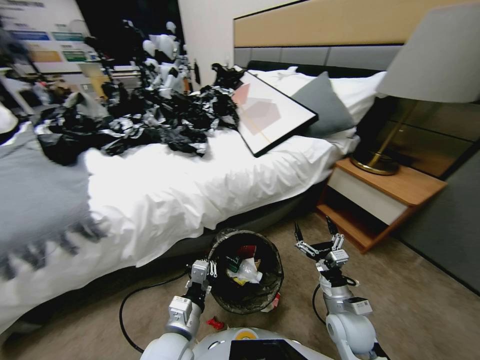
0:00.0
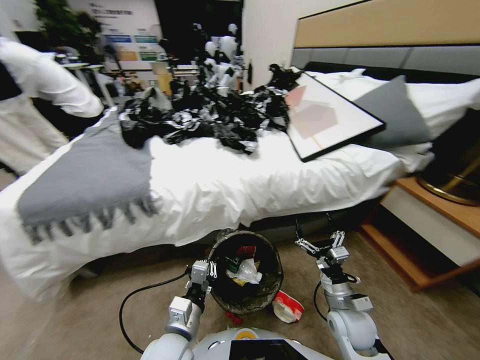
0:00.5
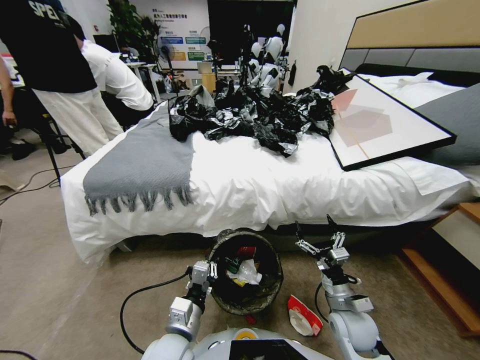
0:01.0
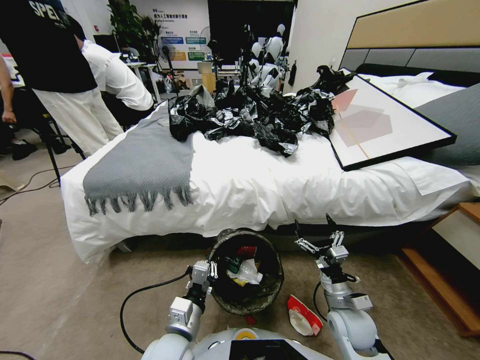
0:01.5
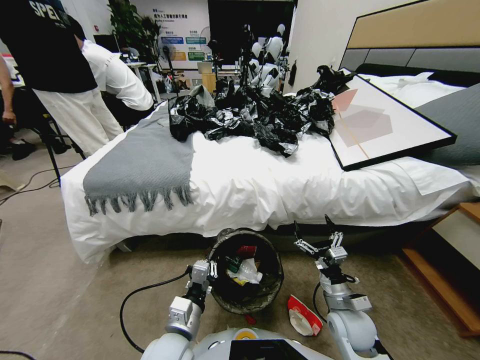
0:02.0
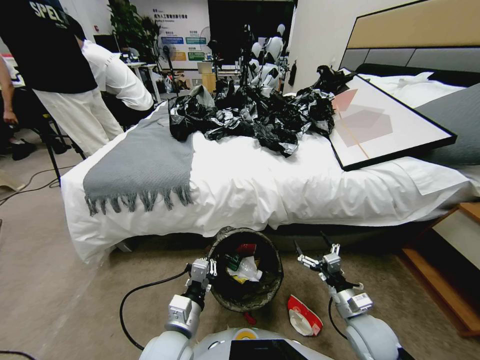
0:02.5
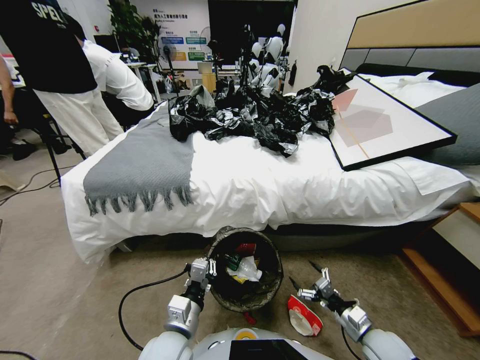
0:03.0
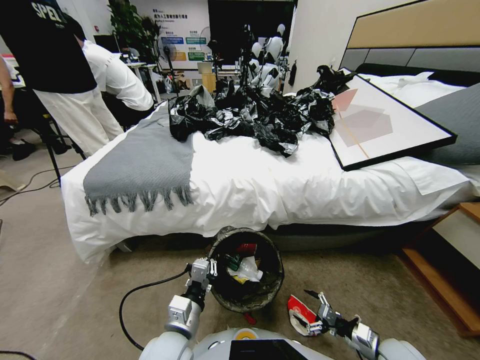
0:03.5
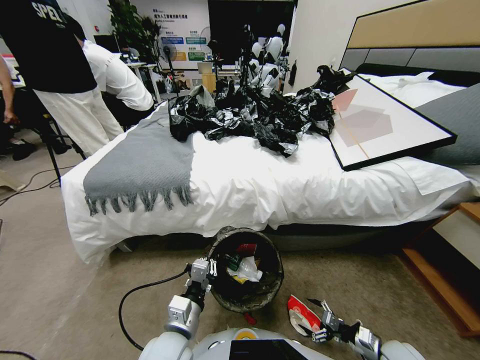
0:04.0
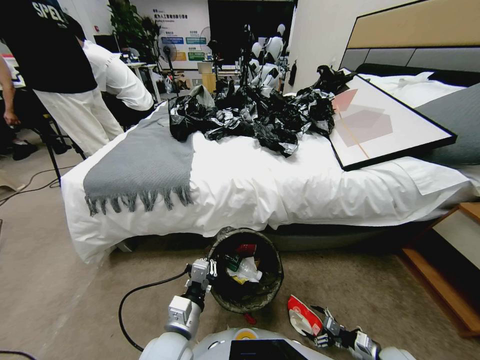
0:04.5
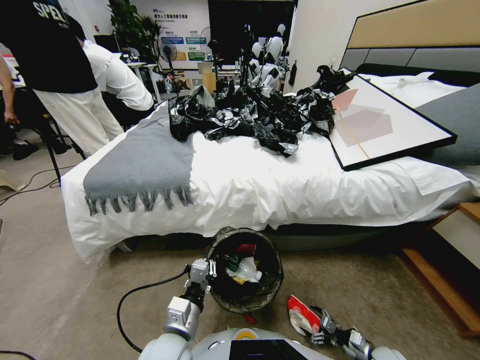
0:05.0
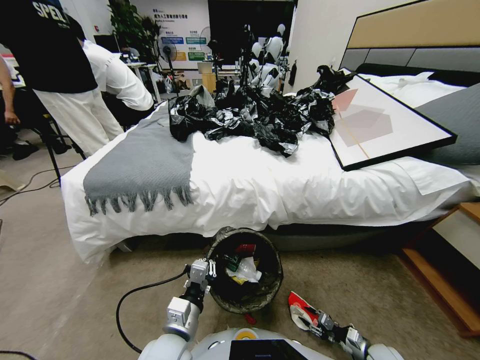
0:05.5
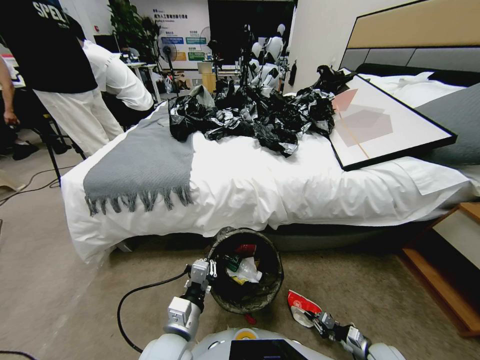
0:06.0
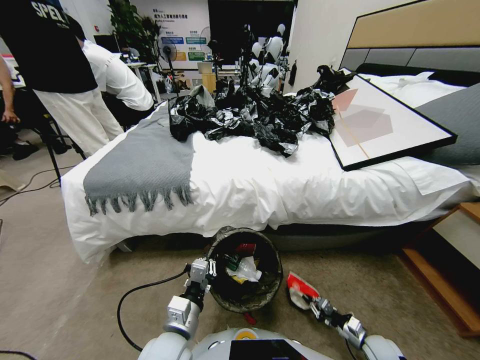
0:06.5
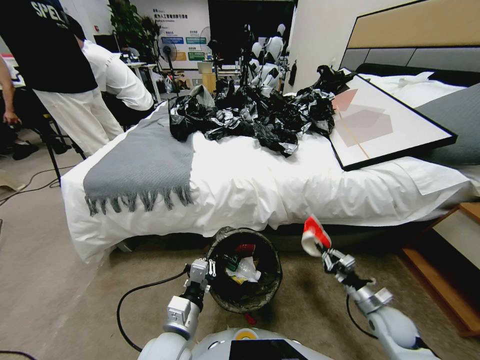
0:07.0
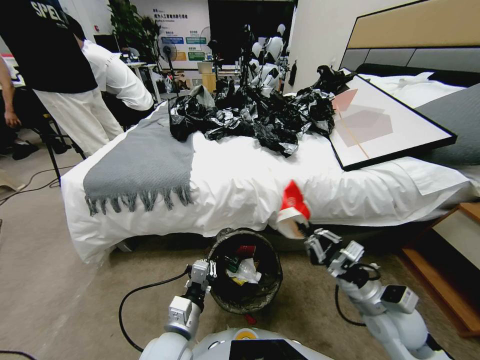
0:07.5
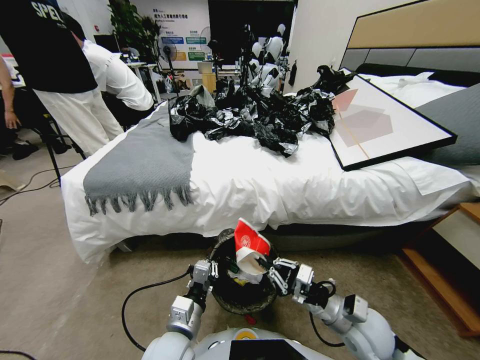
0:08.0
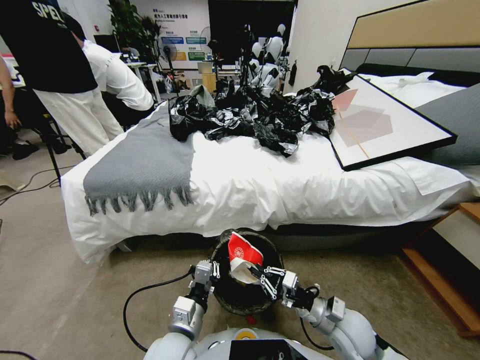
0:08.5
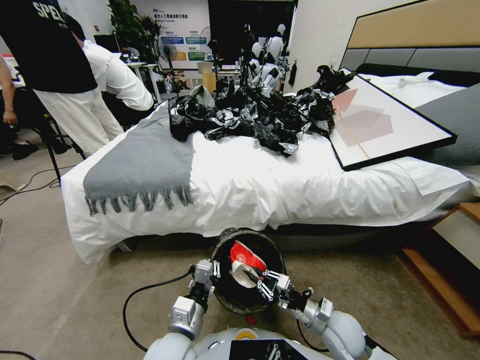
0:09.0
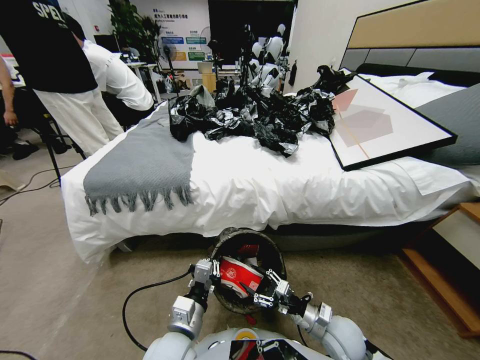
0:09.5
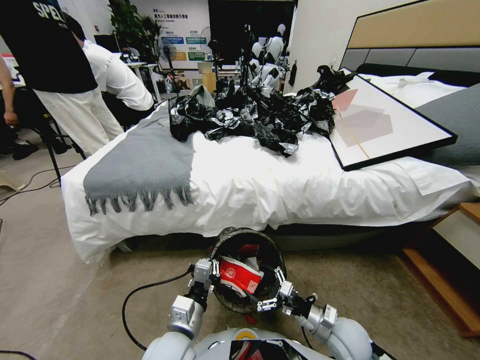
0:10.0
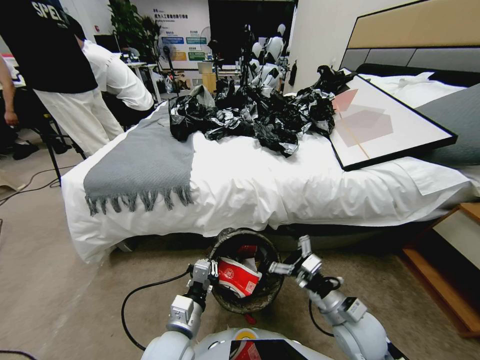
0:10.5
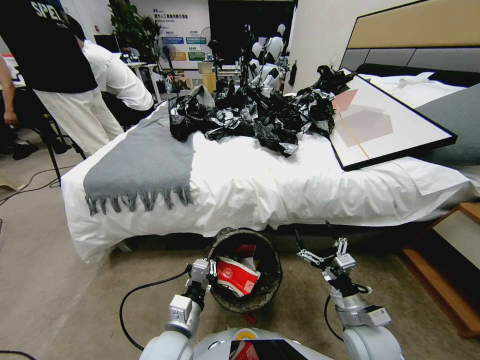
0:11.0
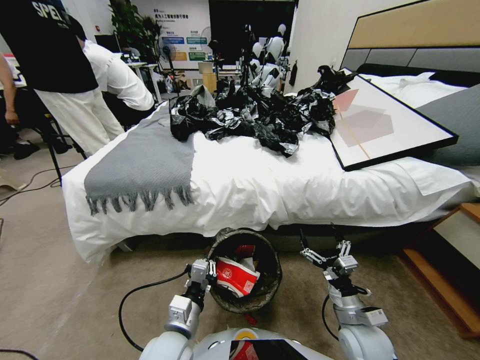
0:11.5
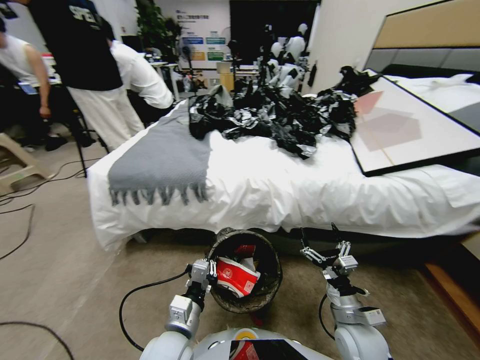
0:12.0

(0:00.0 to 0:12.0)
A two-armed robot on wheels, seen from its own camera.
Task of the whole recording: Pick up the trash bin, then pick up the garbage from the floor and place it into the trash bin.
0:02.0 - 0:04.0: The right gripper goes approximately 25 cm to the right, downward and backward.
0:04.0 - 0:06.0: The right gripper heads downward, covering roughly 5 cm, and closes.
0:06.0 - 0:08.0: The right gripper shifts roughly 30 cm upward and to the left.
0:08.0 - 0:10.0: The right gripper shifts approximately 5 cm downward, and opens up.

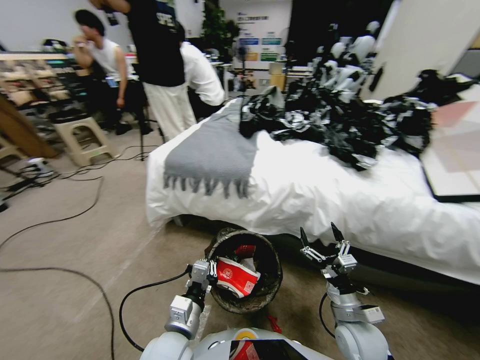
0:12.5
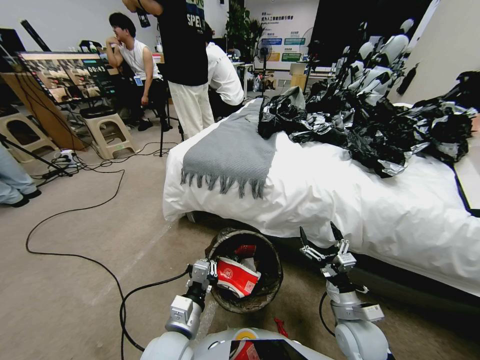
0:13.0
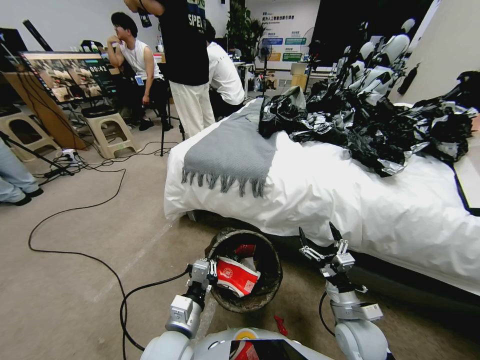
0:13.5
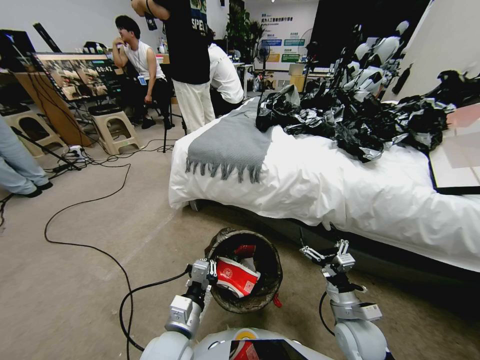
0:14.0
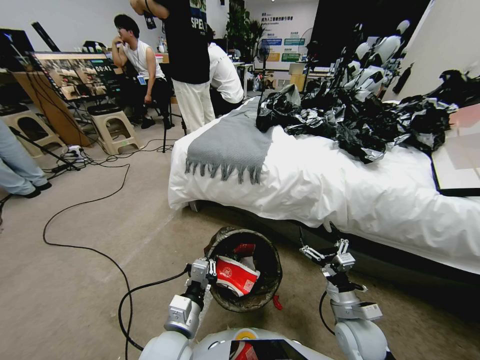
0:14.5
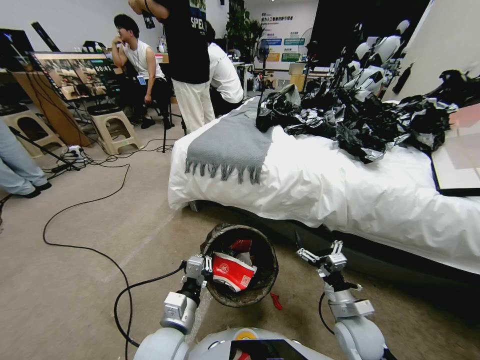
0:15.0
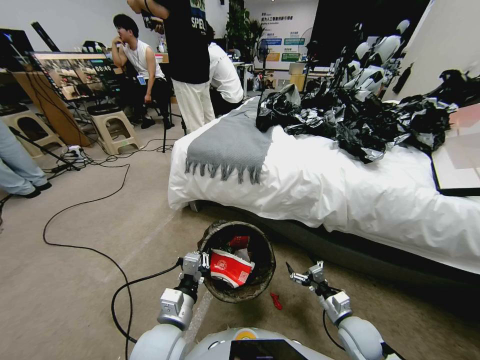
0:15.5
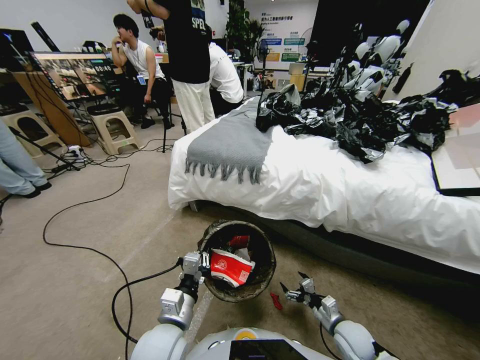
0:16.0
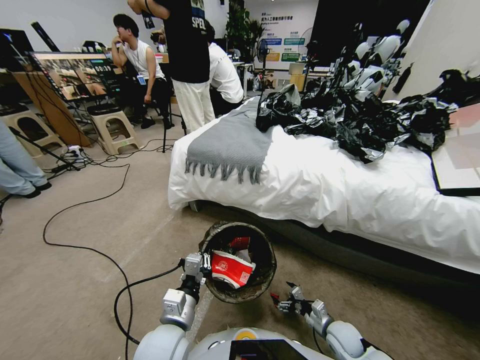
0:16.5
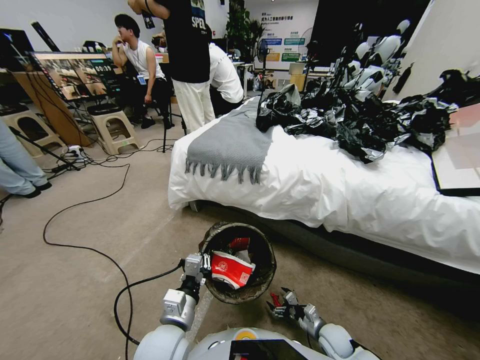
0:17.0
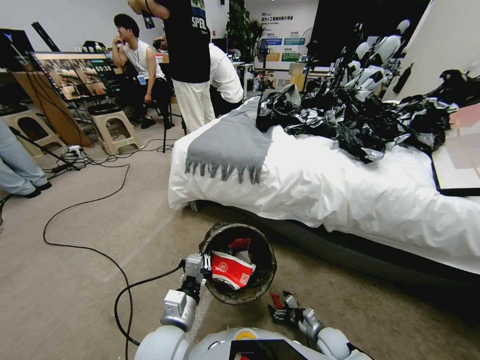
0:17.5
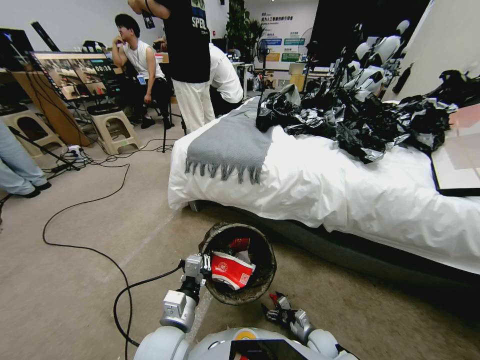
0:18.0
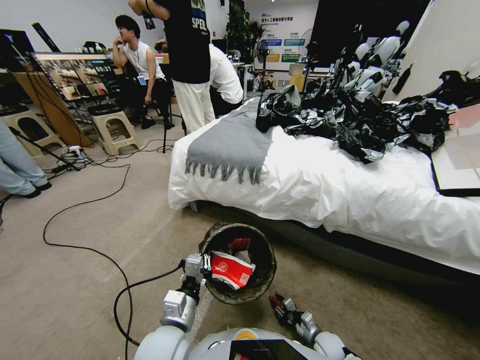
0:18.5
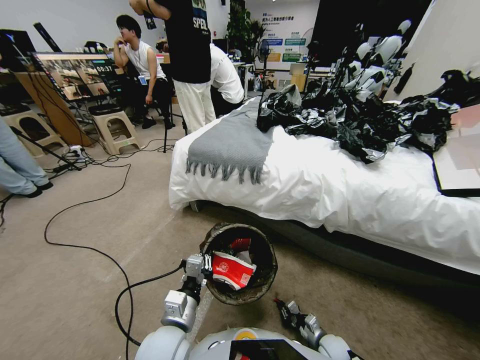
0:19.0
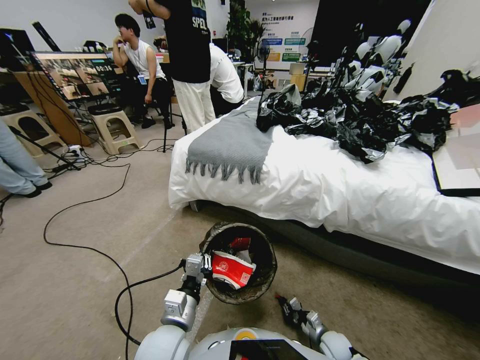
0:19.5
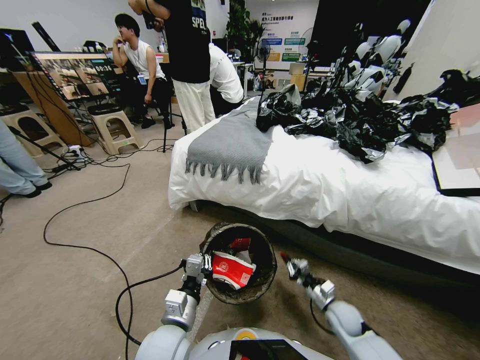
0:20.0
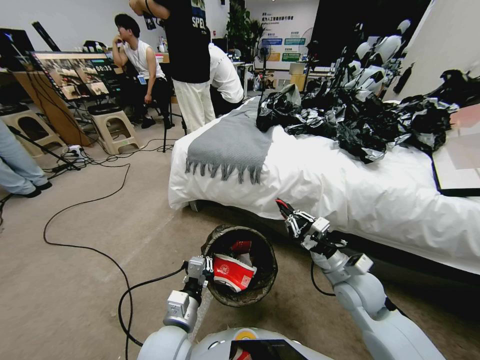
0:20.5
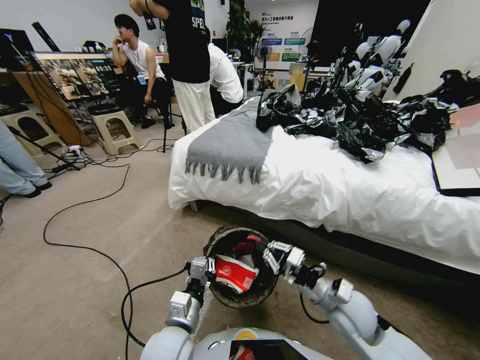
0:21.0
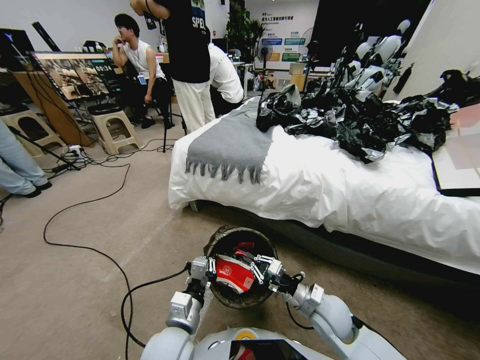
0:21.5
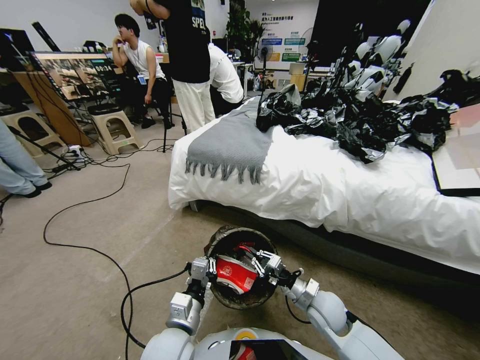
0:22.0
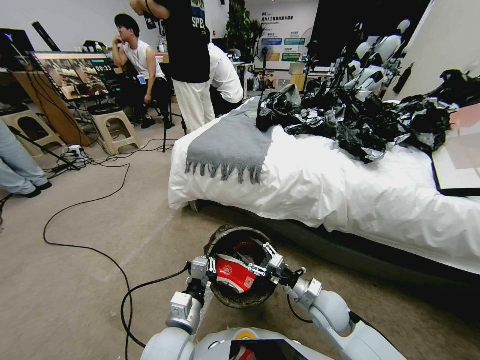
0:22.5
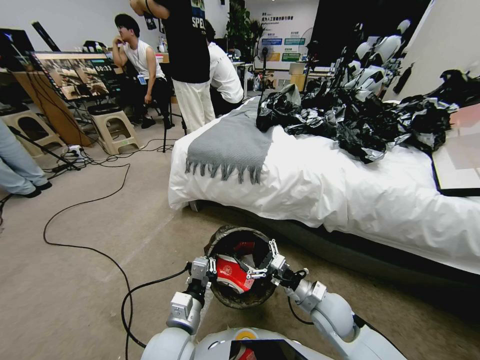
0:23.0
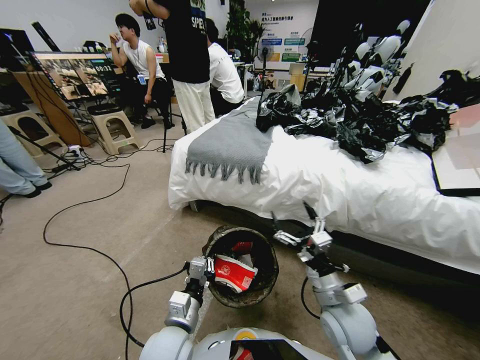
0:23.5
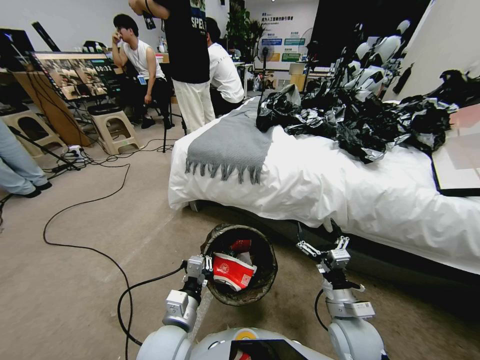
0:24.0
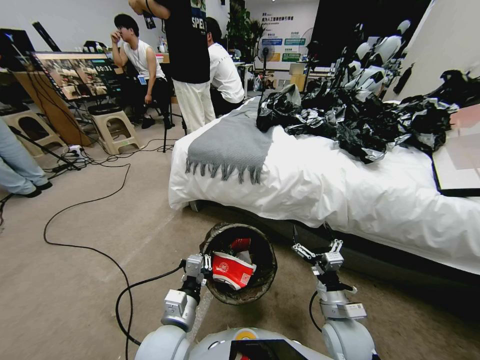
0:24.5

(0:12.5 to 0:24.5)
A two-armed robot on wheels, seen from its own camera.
Task of the whole recording: Pick up the trash bin, then pick up the garbage from the floor and place it into the trash bin.
0:14.5 - 0:16.5: The right gripper heads downward, covering roughly 15 cm.
0:16.5 - 0:18.5: The right gripper goes about 10 cm downward, and closes up.
0:18.5 - 0:20.5: The right gripper goes roughly 35 cm upward.
0:20.5 - 0:22.5: The right gripper shifts about 10 cm downward, and opens.
0:22.5 - 0:24.5: The right gripper heads backward, covering roughly 5 cm, and moves some 10 cm upward and comes back.

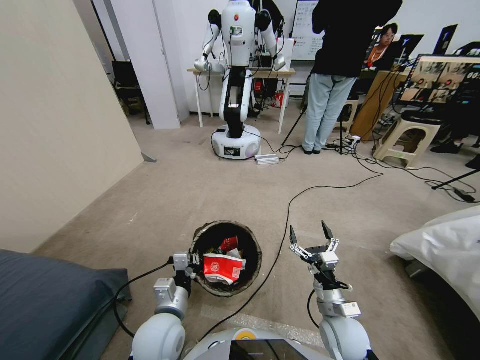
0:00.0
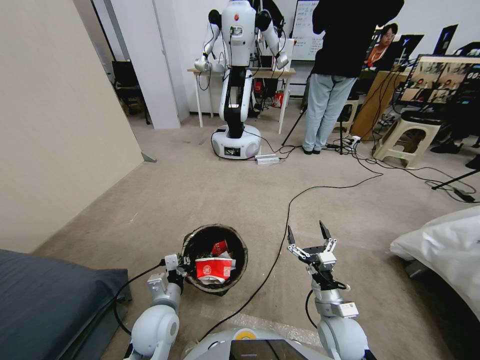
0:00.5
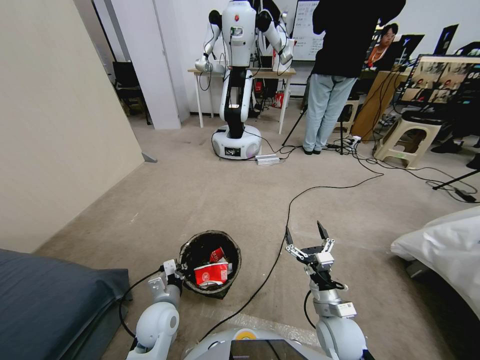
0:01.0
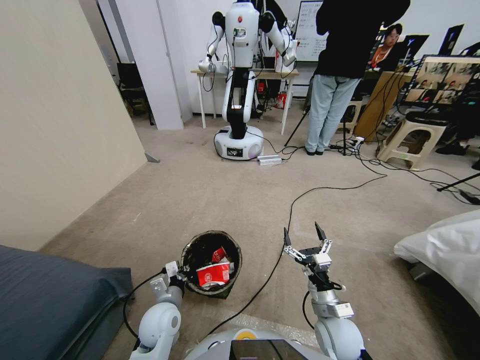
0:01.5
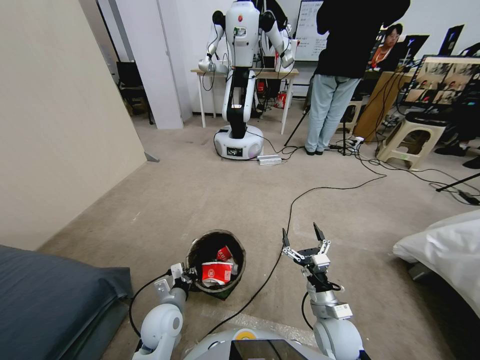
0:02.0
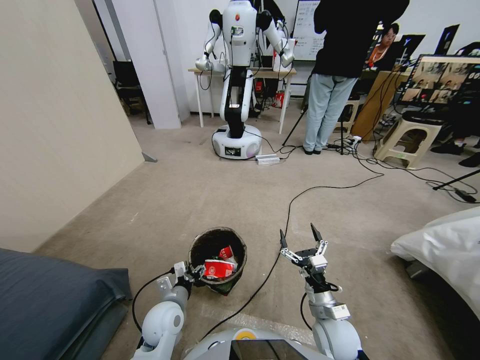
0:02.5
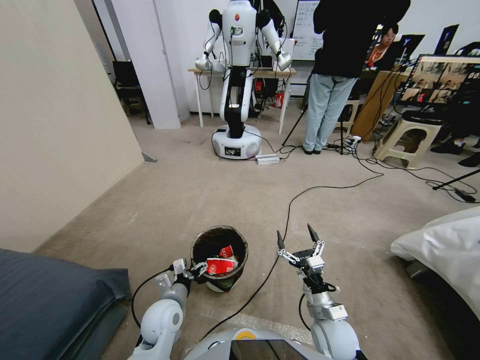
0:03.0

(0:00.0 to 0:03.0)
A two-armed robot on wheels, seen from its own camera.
Task of the whole recording: Pick up the trash bin, then pick up the garbage from the floor and place it into the trash bin.
0:00.0 - 0:01.5: The left gripper shifts some 5 cm downward.
0:01.5 - 0:03.0: The left gripper opens up.
